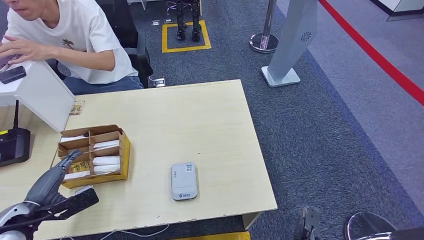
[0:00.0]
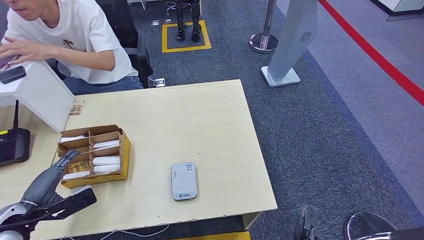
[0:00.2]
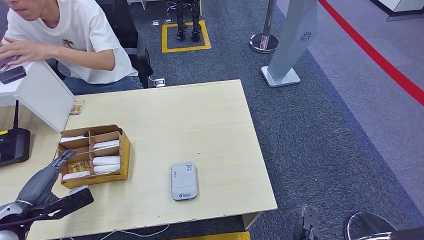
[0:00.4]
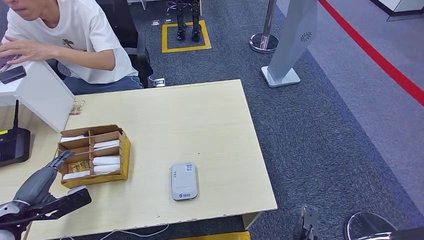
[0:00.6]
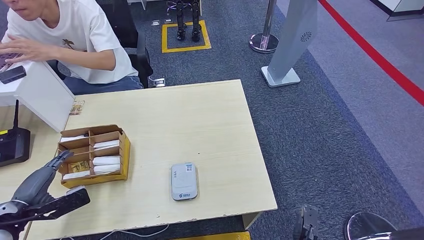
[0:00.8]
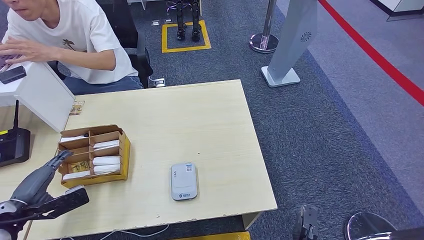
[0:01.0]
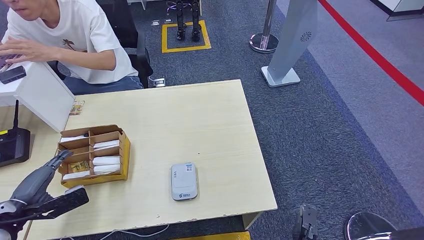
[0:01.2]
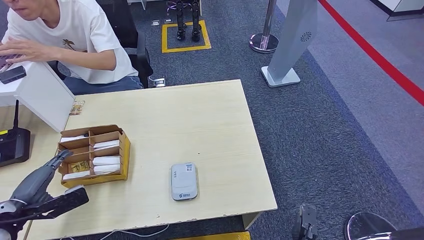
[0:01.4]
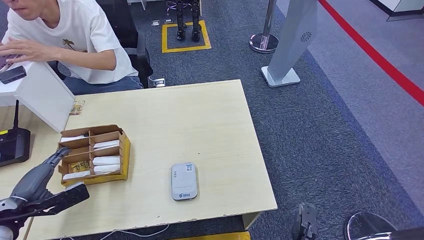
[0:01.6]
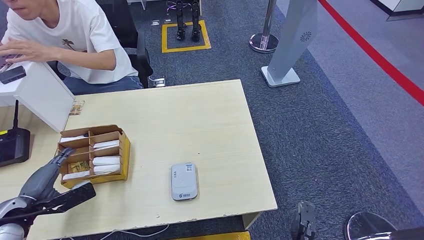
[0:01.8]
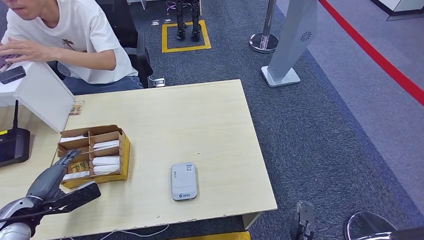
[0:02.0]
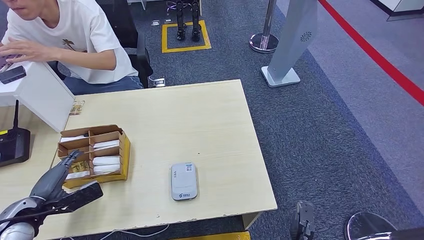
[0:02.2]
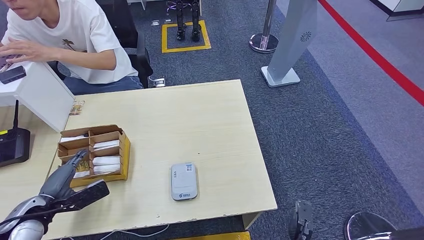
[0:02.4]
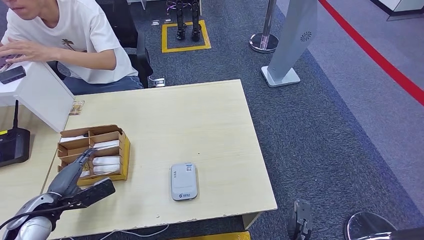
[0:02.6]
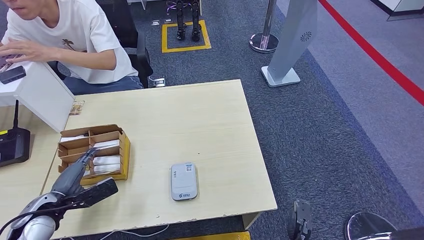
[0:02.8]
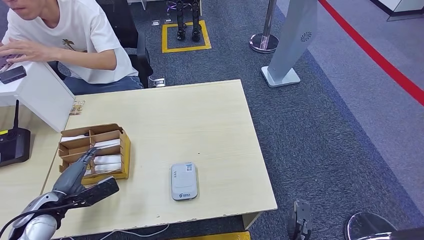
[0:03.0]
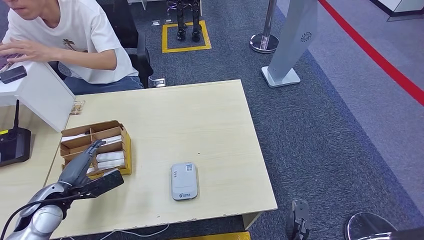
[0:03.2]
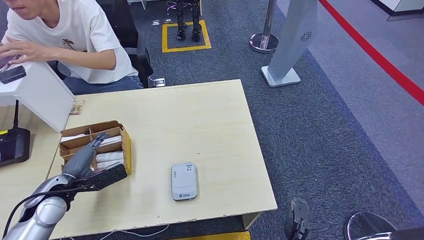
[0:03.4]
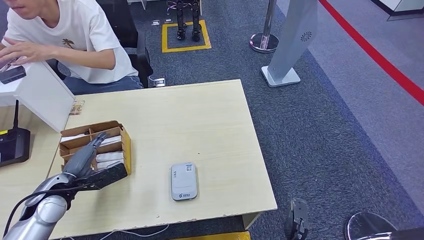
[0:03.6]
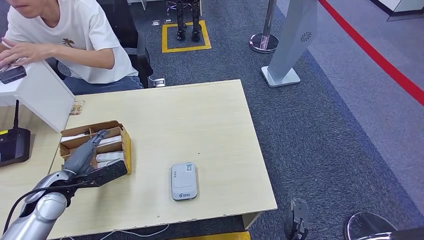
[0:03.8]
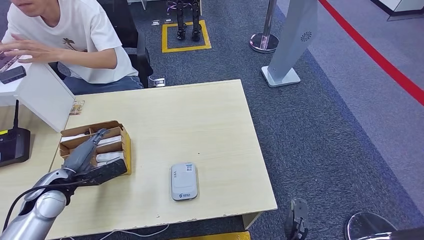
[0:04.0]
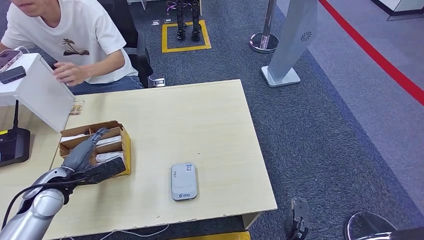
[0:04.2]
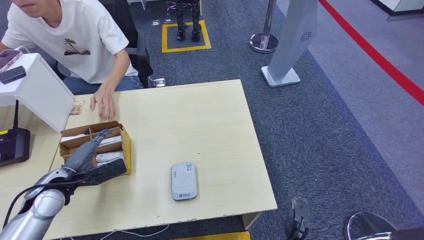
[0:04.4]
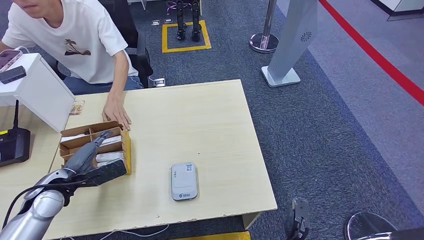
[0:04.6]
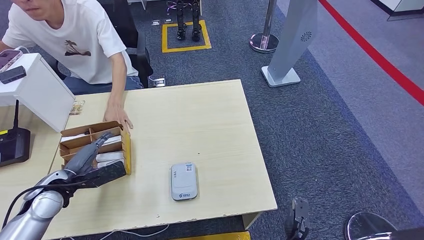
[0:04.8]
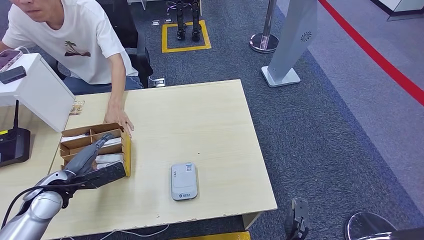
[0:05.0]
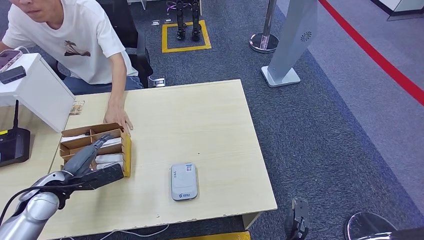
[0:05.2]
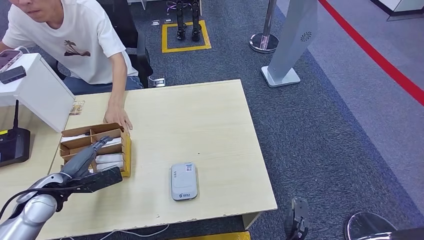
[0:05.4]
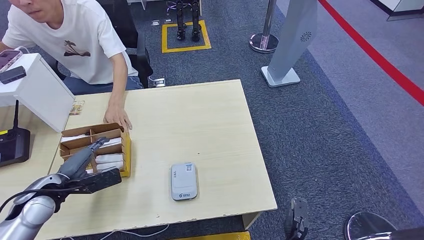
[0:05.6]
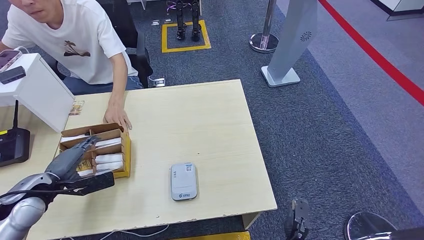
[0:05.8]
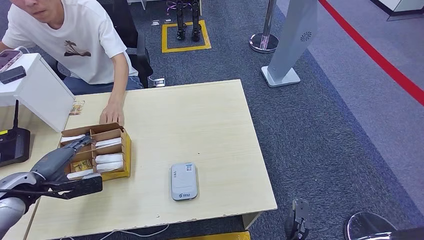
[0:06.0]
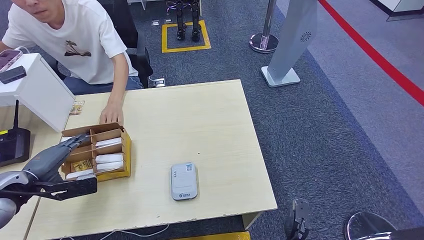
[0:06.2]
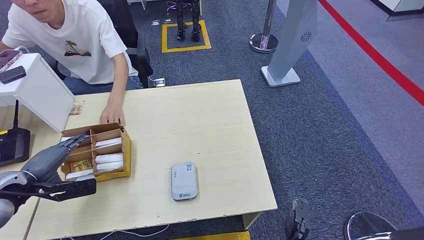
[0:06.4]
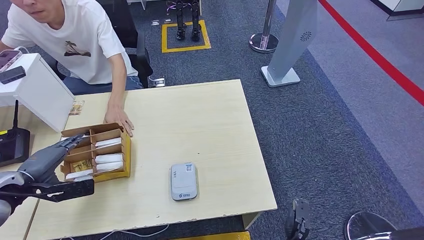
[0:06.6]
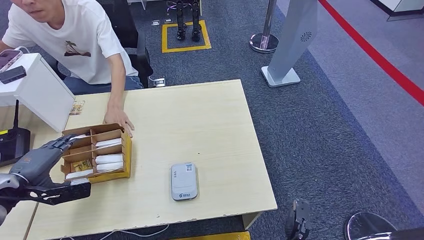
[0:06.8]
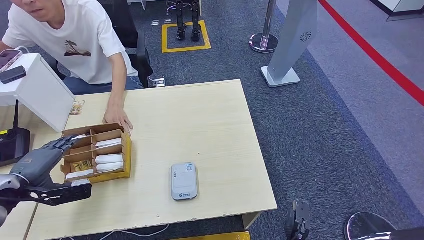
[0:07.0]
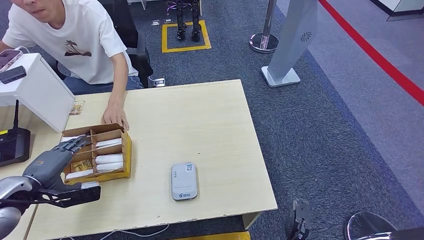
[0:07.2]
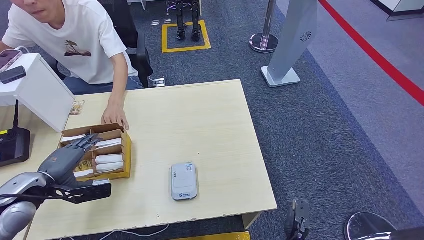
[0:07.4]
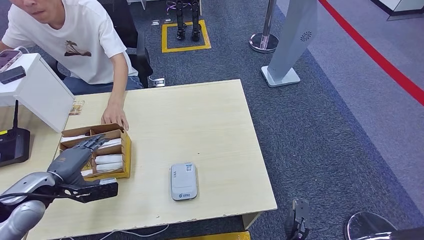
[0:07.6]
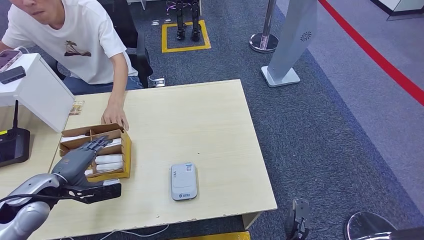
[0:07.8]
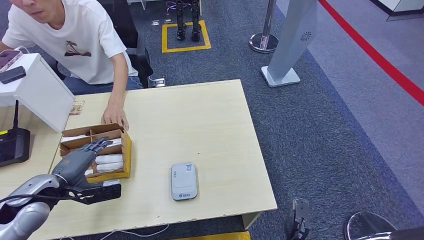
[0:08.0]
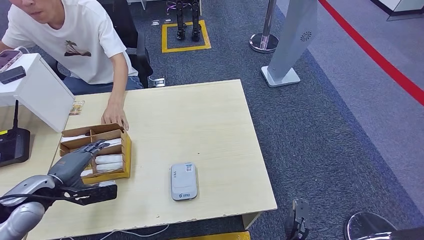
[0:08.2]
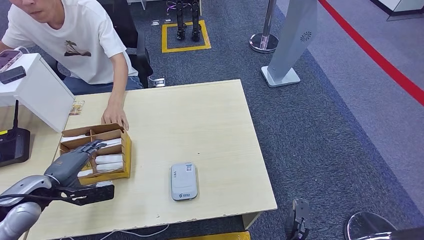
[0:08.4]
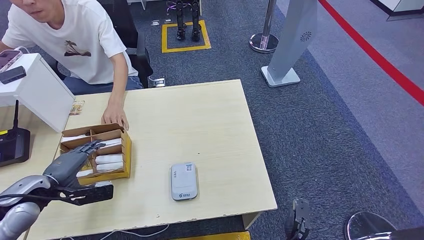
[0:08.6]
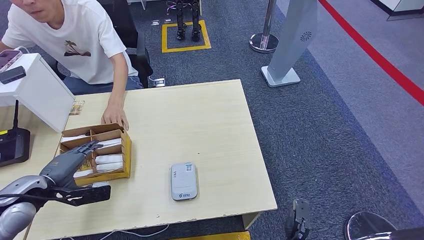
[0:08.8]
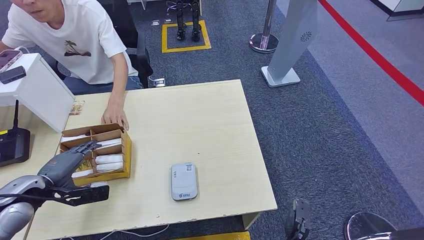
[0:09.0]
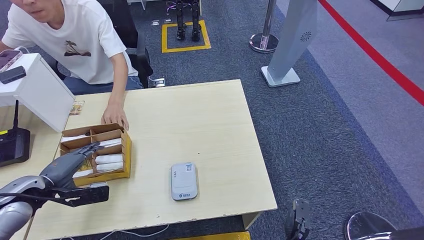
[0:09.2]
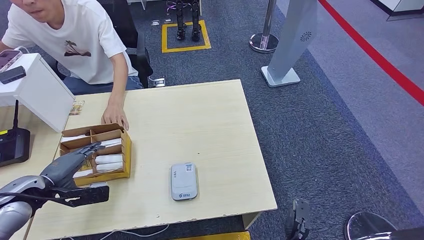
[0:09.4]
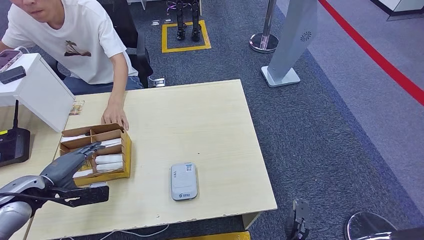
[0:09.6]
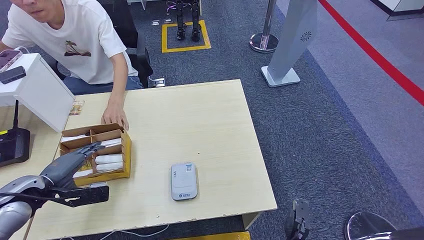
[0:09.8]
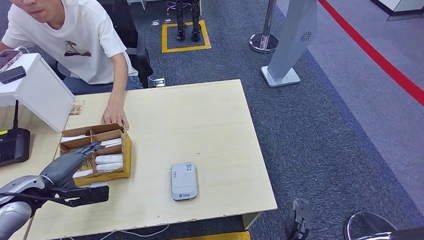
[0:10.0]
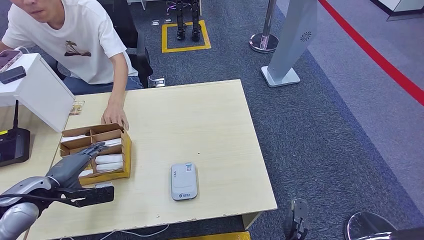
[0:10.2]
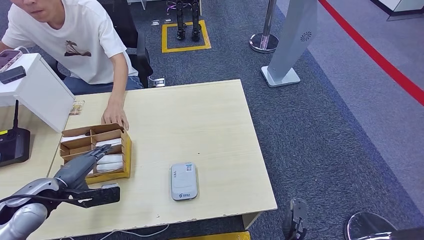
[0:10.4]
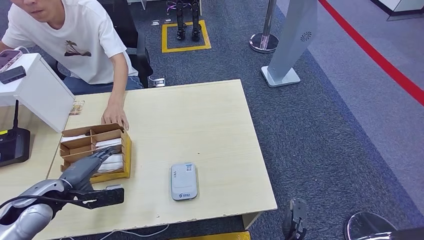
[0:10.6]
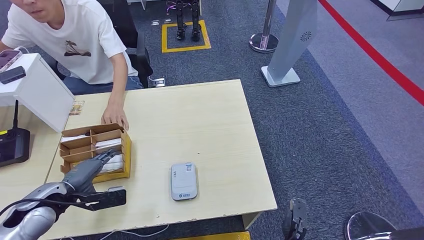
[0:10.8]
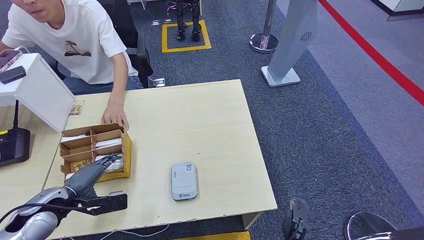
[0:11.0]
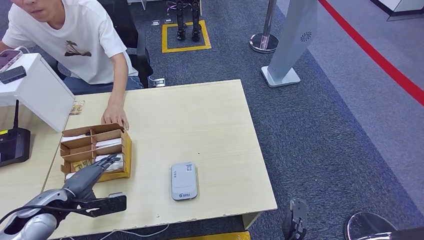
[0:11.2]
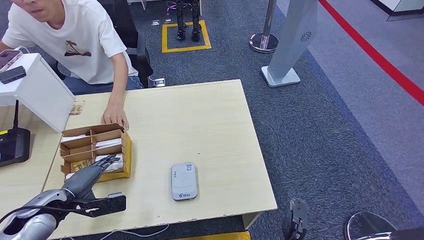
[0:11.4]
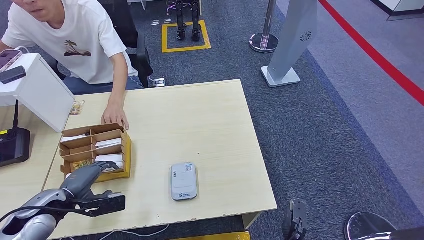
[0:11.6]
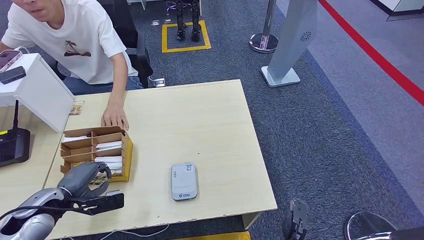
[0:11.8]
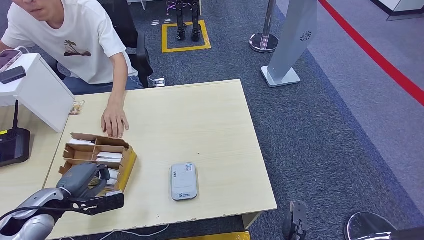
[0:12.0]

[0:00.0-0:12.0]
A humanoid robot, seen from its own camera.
0:00.0 to 0:01.6: The hands make only small movements.
0:01.6 to 0:03.0: The left hand shifts some 5 cm to the right.
0:03.0 to 0:04.4: The left hand shifts by roughly 5 cm.
0:04.4 to 0:06.0: The left hand goes about 5 cm to the left.
0:06.0 to 0:10.4: The hands stay close to where they were, moving slightly.
0:10.4 to 0:12.0: There are only small adjustments of the hands.

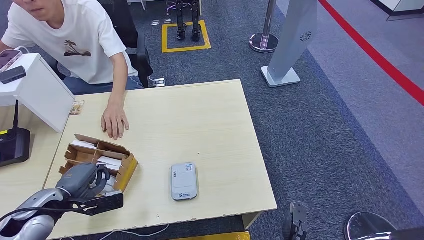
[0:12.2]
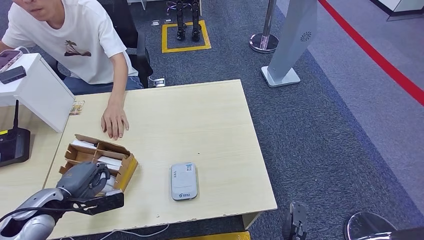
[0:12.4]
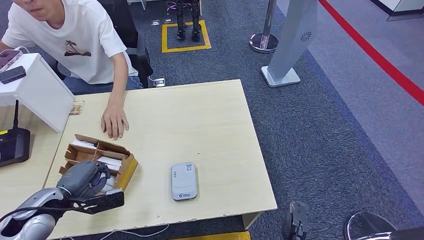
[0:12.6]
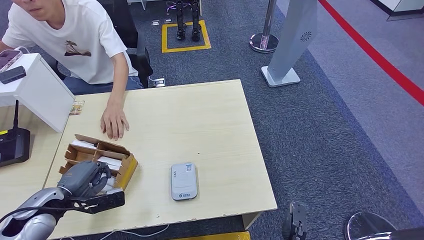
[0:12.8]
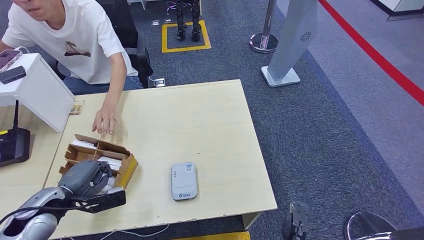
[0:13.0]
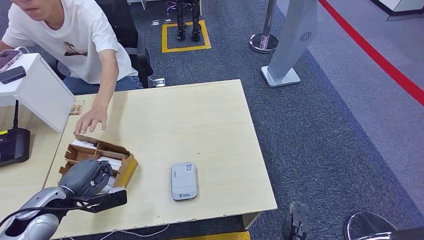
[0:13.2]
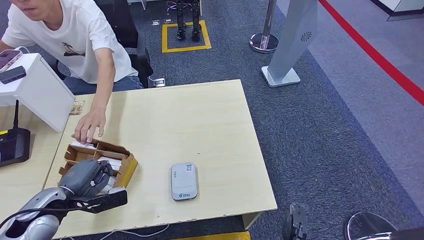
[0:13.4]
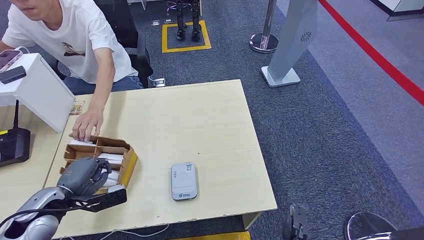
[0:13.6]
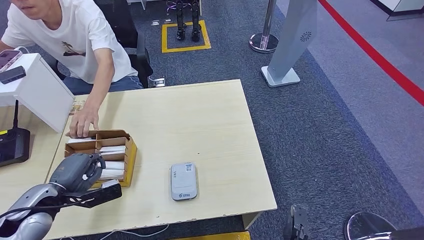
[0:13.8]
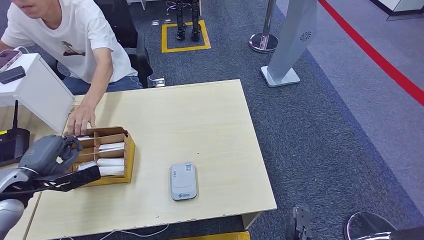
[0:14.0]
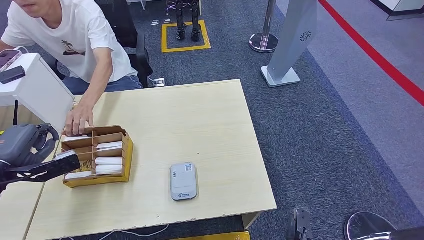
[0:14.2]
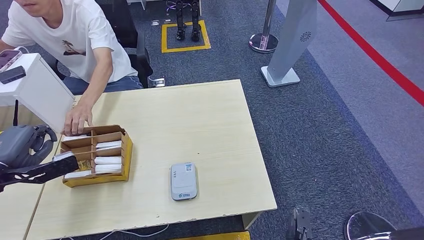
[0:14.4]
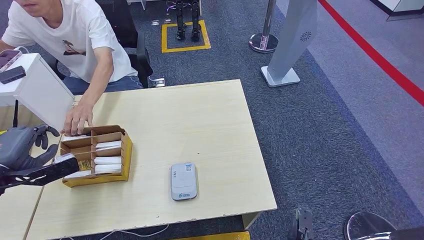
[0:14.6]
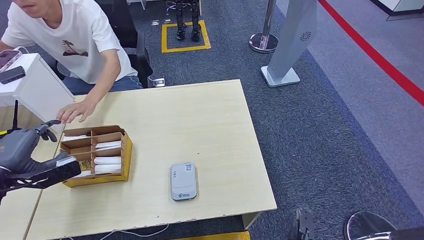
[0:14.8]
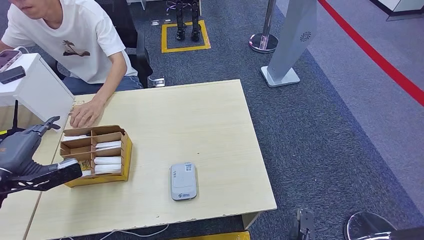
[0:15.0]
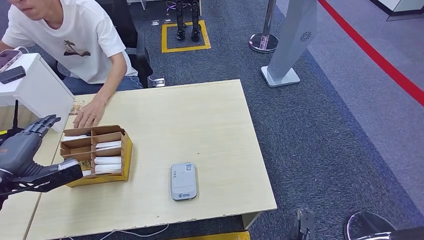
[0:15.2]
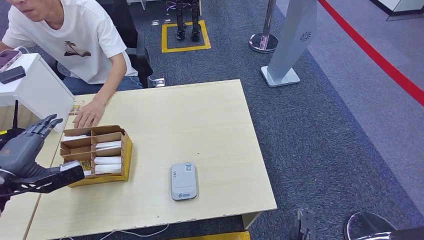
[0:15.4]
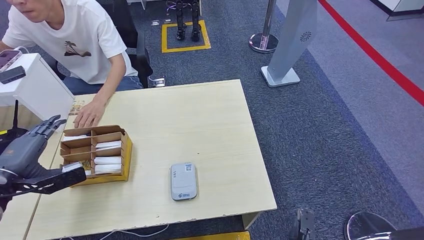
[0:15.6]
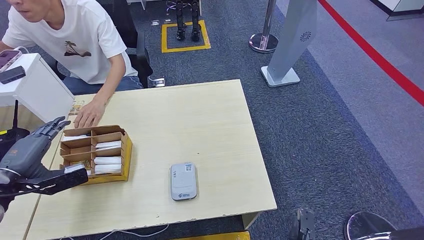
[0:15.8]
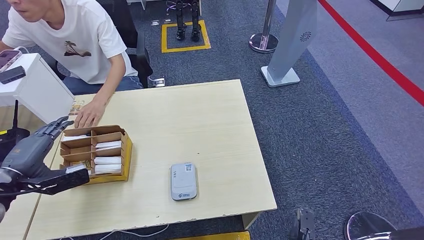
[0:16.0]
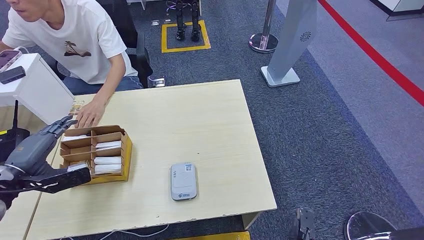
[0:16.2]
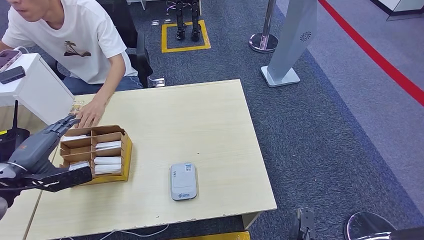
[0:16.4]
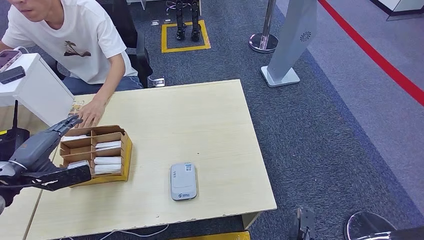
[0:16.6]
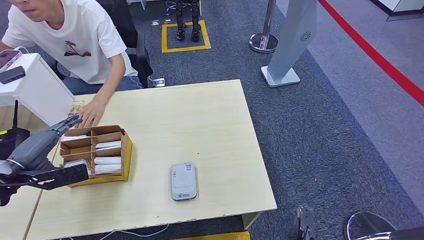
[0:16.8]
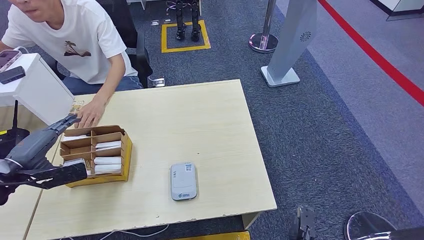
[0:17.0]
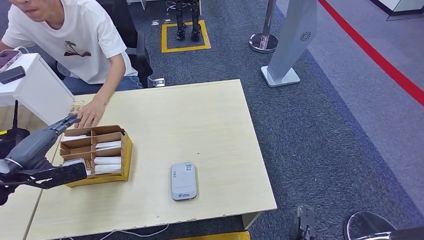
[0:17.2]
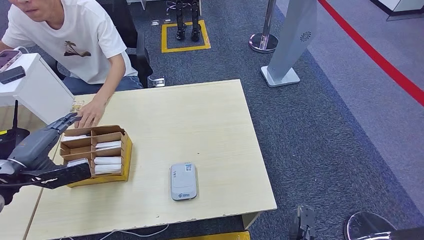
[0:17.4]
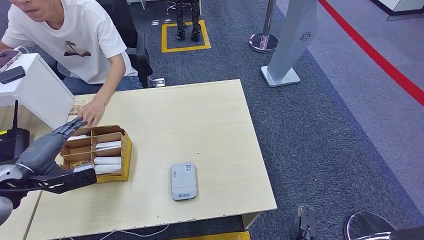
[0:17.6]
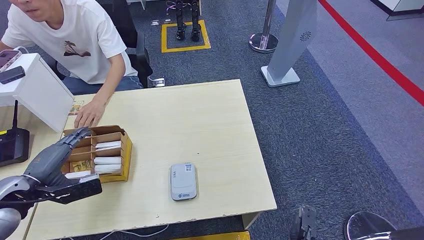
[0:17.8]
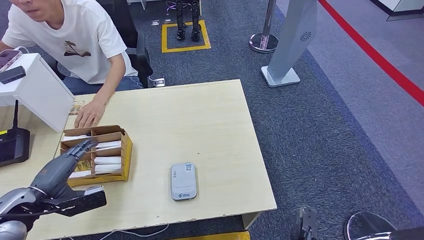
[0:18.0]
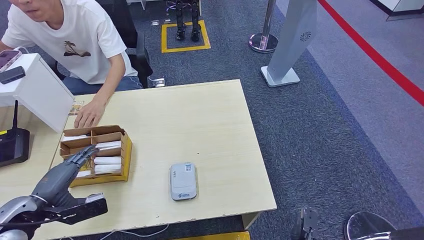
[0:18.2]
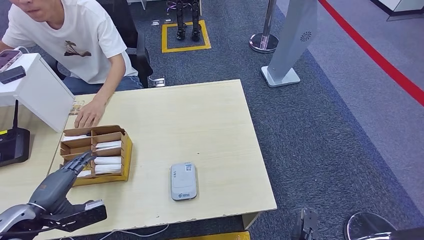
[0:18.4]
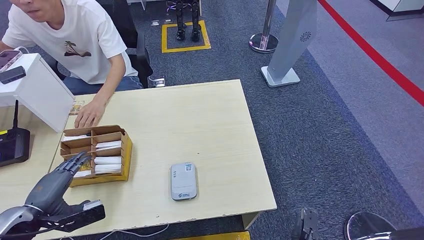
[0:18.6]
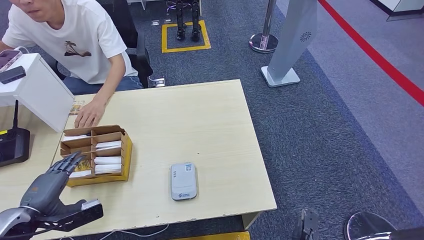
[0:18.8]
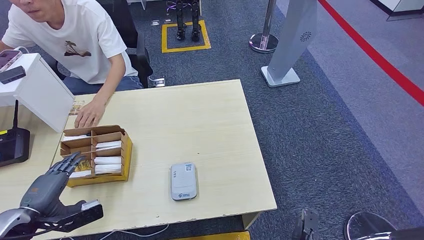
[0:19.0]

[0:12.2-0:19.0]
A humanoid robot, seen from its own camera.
0:12.2 to 0:13.6: The hands make only small movements.
0:13.6 to 0:15.0: The left hand is displaced upward and to the left by approximately 10 cm.
0:15.0 to 0:17.6: The hands stay close to where they were, moving slightly.
0:17.6 to 0:19.0: The left hand shifts about 10 cm backward and downward.
